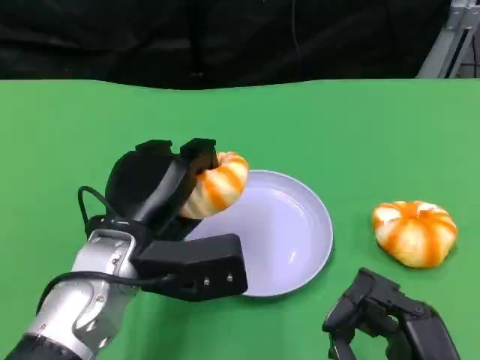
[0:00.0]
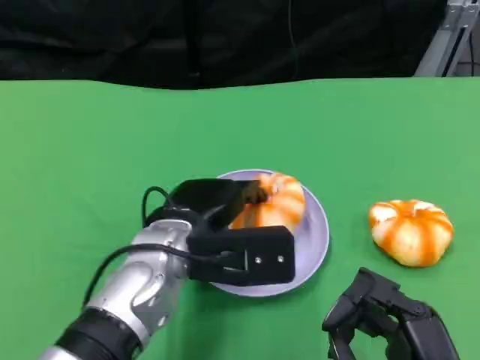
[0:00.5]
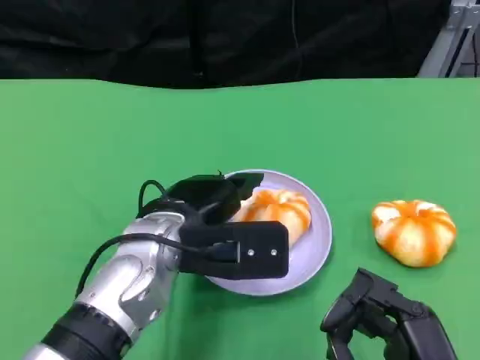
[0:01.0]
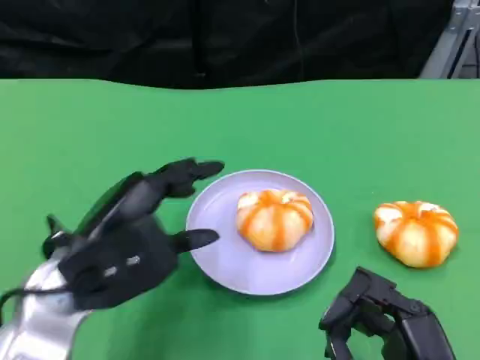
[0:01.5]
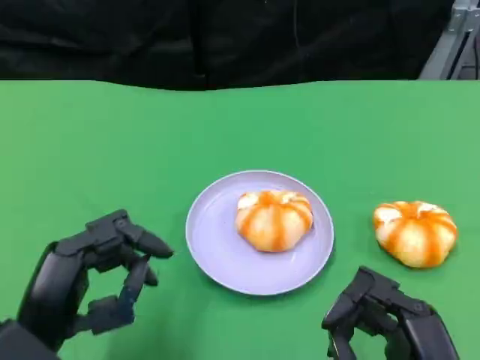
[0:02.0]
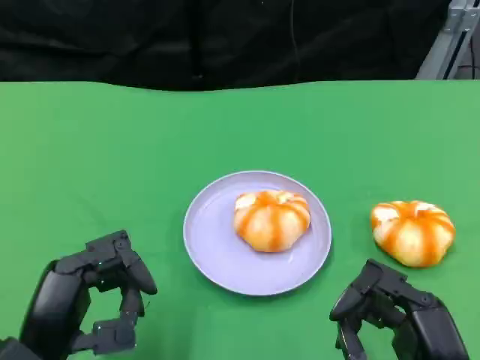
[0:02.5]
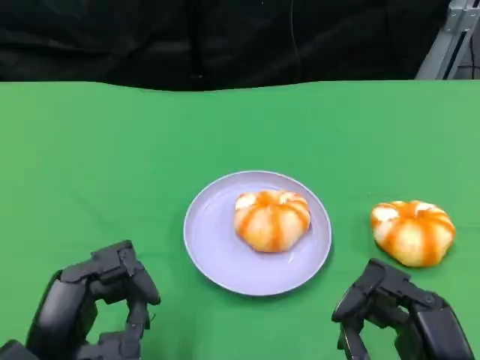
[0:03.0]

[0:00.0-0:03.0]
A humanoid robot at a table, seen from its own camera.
Task of the whole recording: Grasp the bread from the table and place it into the plate.
0:00.0 to 0:01.5: The left hand travels to the left by approximately 5 cm.
0:01.5 to 0:03.0: The left hand travels backward and downward by roughly 10 cm.

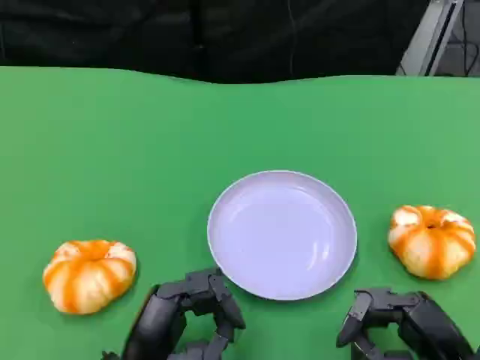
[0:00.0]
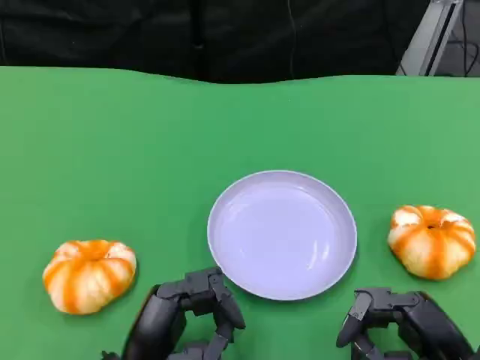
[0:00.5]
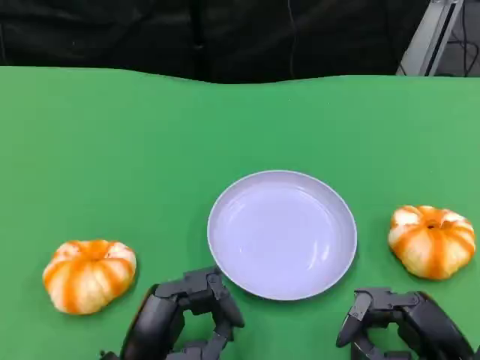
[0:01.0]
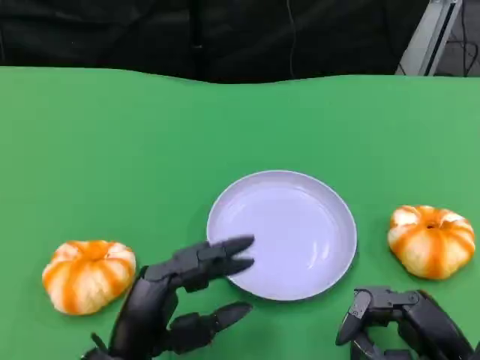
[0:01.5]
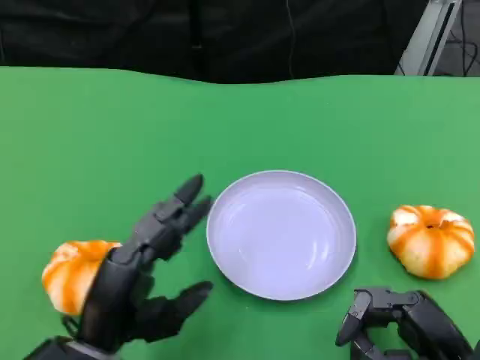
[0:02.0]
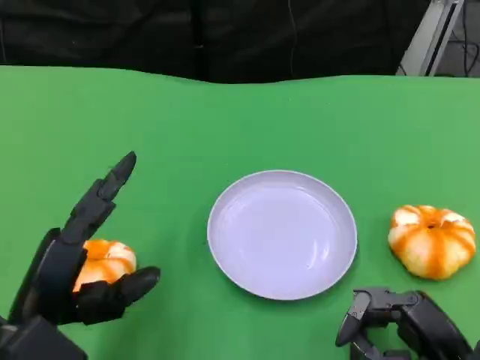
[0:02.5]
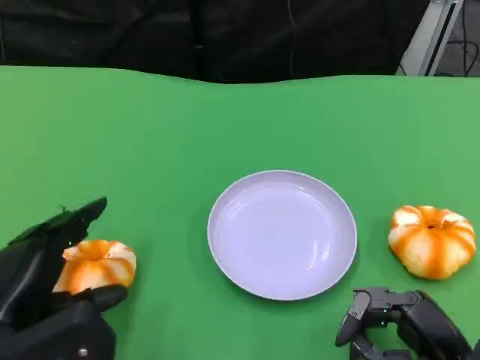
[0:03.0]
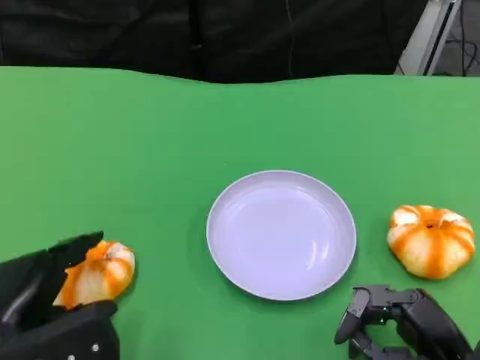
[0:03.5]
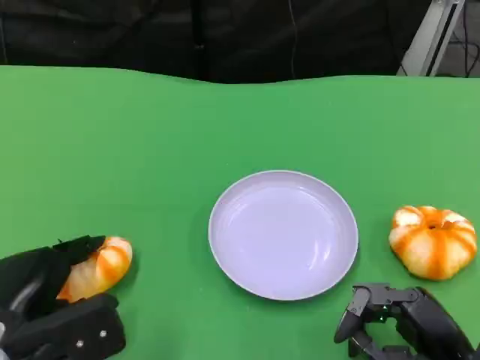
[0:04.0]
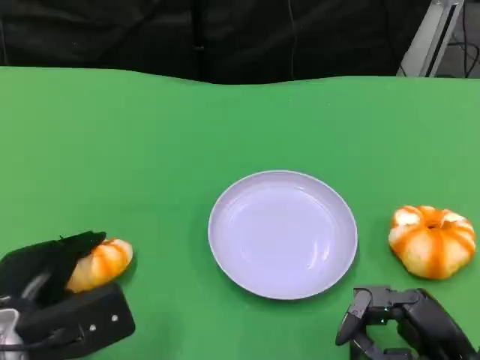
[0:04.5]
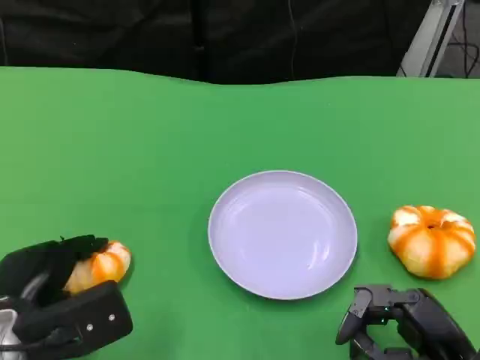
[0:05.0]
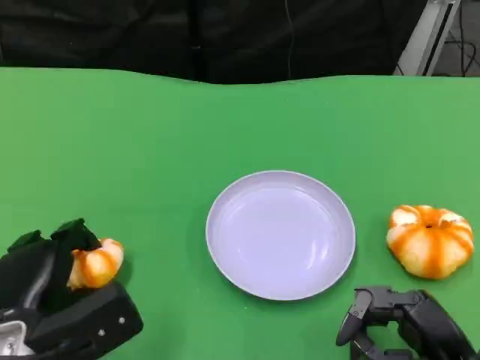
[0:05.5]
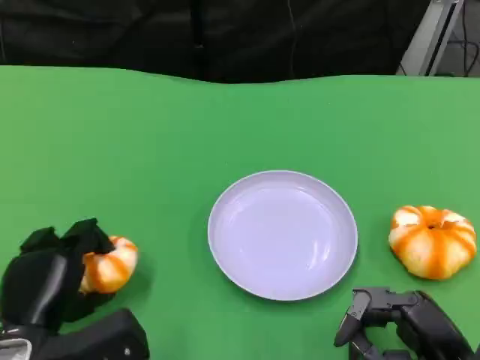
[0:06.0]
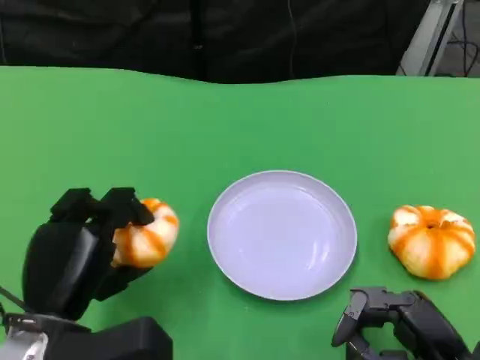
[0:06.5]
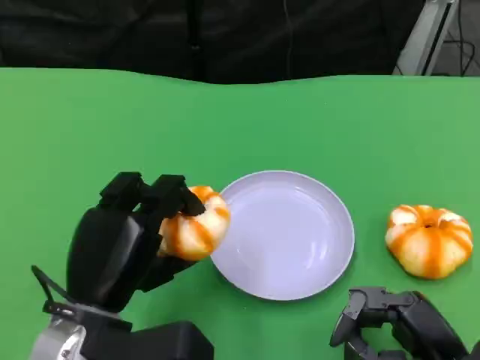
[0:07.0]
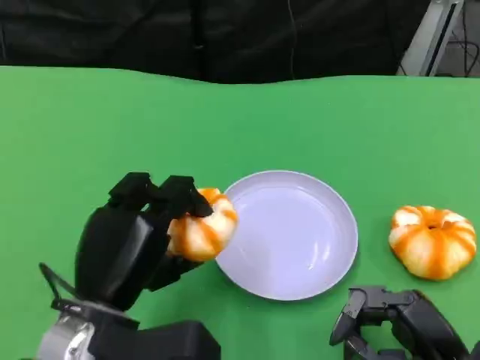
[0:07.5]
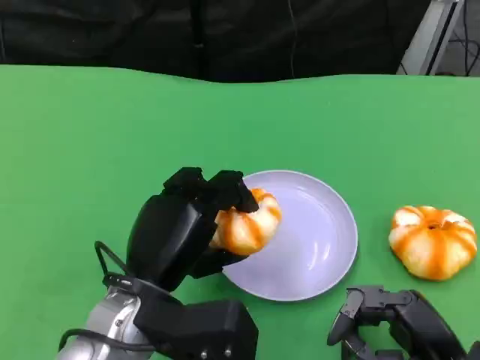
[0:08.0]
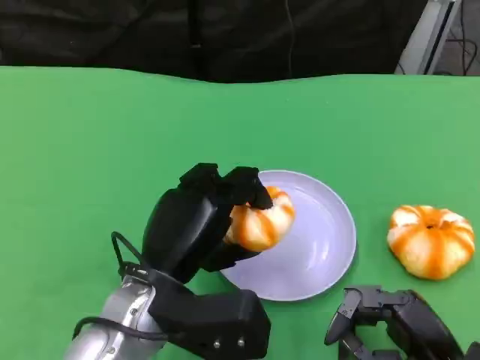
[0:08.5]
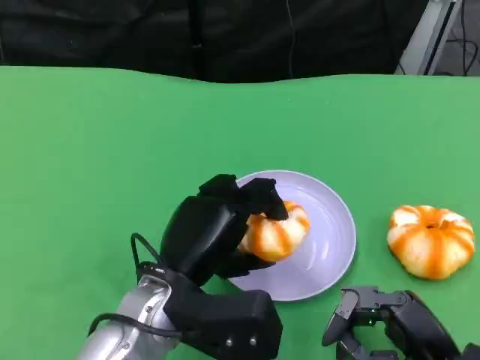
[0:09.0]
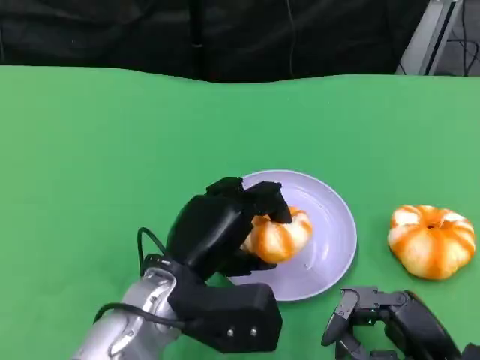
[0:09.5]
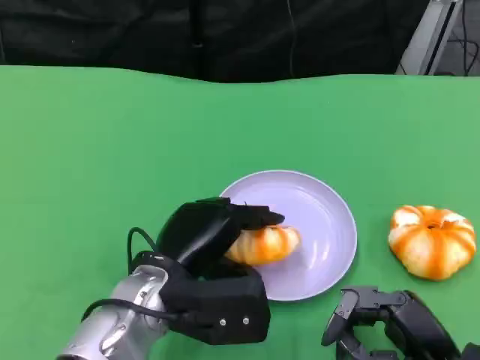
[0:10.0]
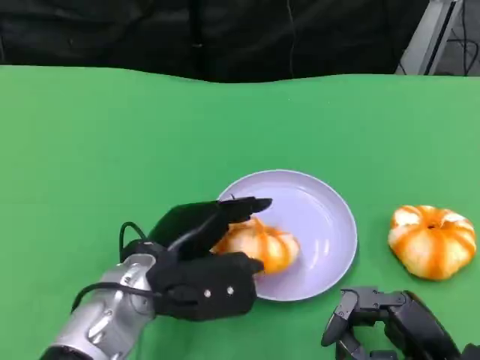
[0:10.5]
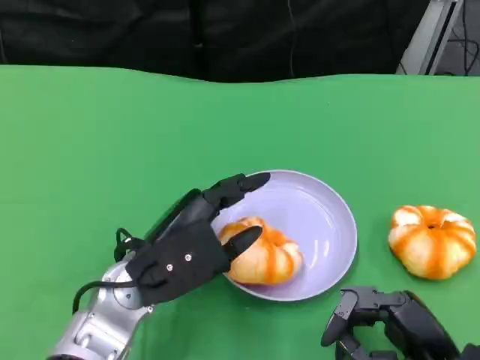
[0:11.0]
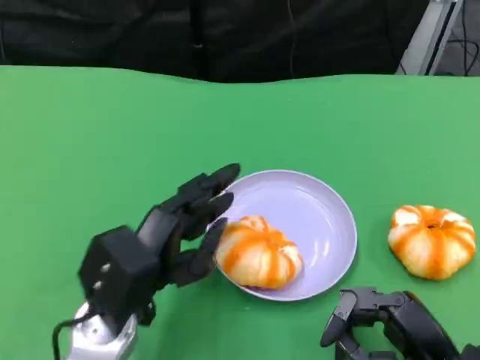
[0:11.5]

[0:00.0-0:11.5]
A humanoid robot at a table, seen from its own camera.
Task of the whole recording: Grasp the bread from the table and place it into the plate.
0:00.0 to 0:02.0: The left hand moves approximately 5 cm.
0:02.0 to 0:04.0: The left hand goes approximately 5 cm to the left.
0:04.0 to 0:06.0: There are only small adjustments of the hands.
0:06.0 to 0:07.5: The left hand is displaced to the right and upward by roughly 10 cm.
0:07.5 to 0:09.5: The left hand moves to the right, about 5 cm.
0:09.5 to 0:11.5: The left hand heads to the left, covering some 5 cm.

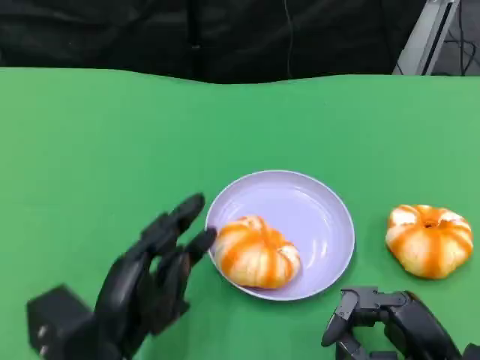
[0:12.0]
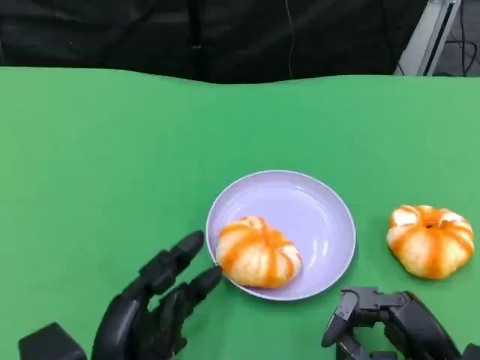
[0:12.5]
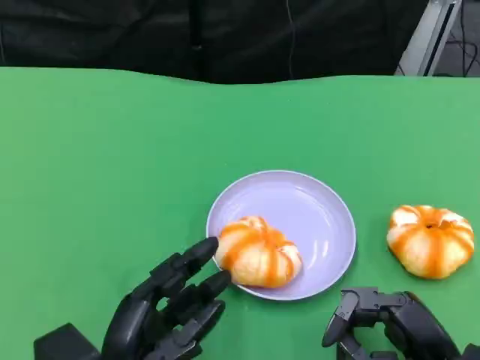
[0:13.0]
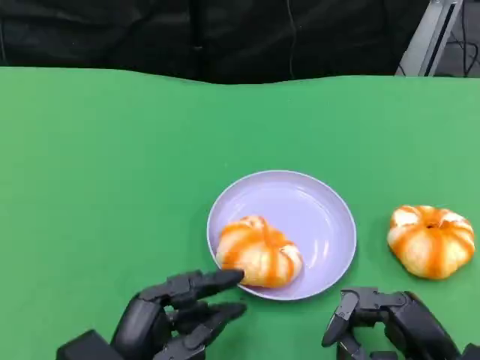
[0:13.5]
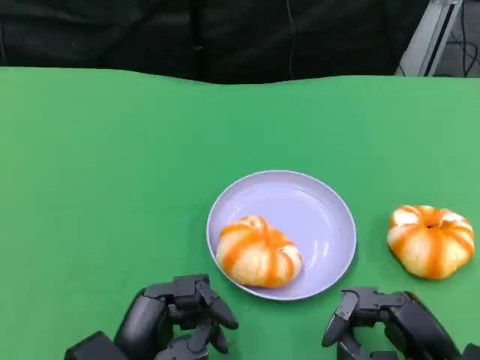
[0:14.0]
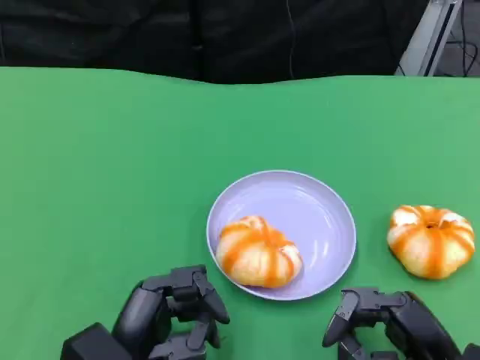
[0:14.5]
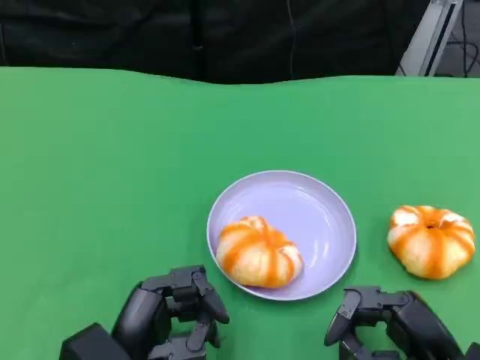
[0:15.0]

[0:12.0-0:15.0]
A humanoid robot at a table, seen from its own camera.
Task of the whole recording: Grasp the bread from the table and place it into the plate.
0:12.0 to 0:13.5: The hands make only small movements.
0:13.5 to 0:15.0: The two hands keep their place.

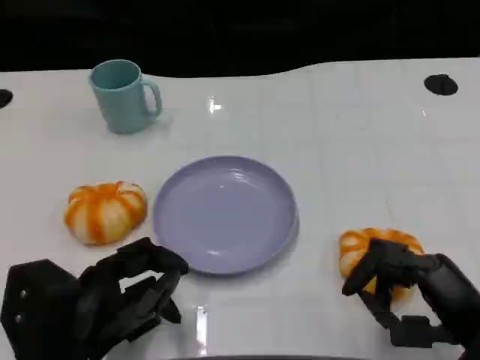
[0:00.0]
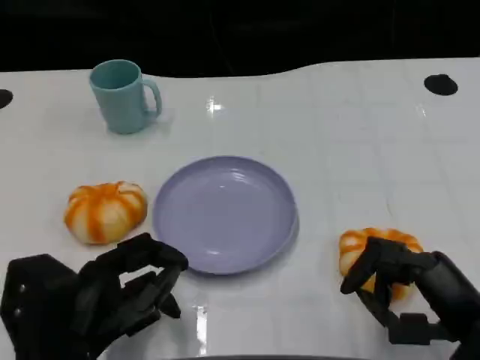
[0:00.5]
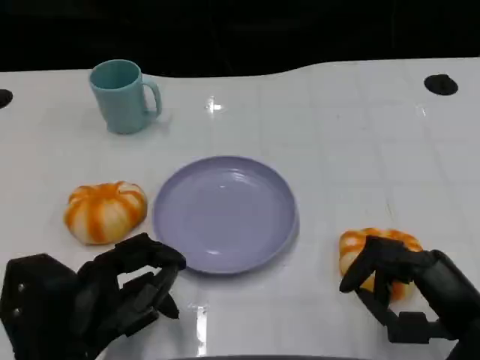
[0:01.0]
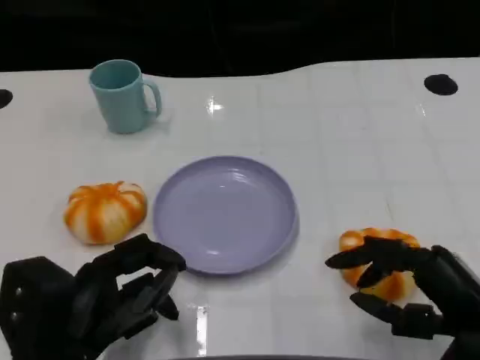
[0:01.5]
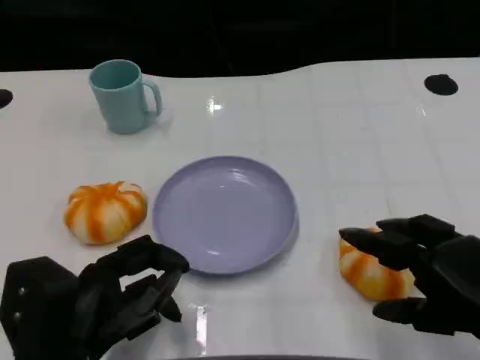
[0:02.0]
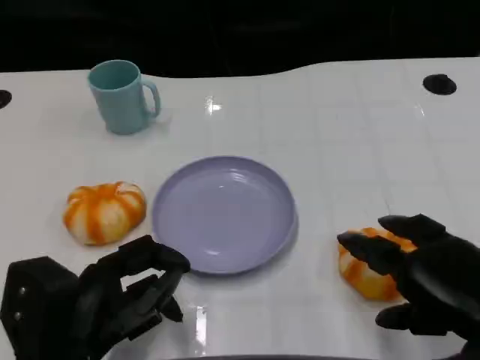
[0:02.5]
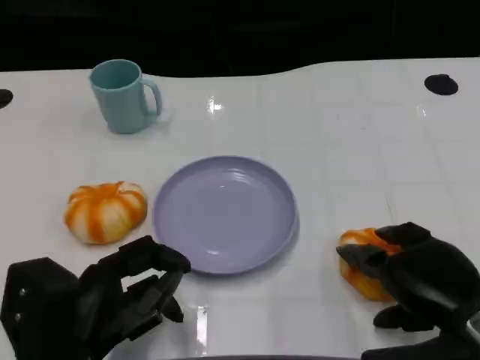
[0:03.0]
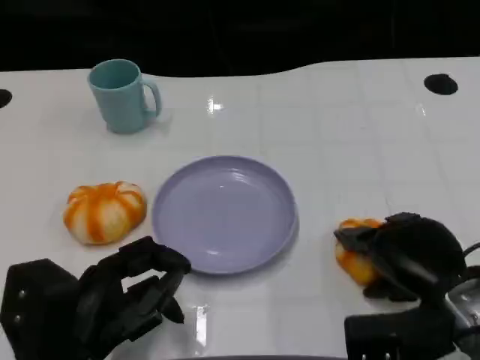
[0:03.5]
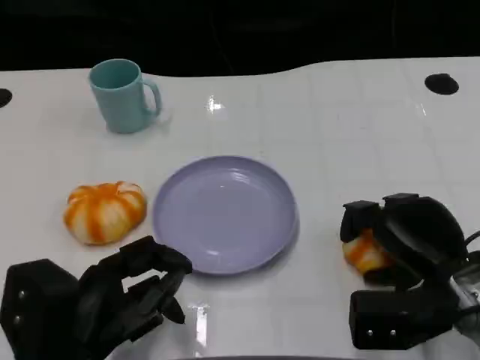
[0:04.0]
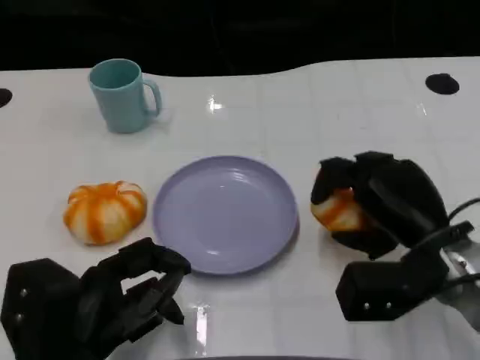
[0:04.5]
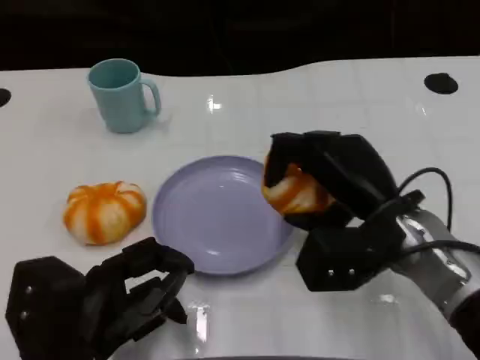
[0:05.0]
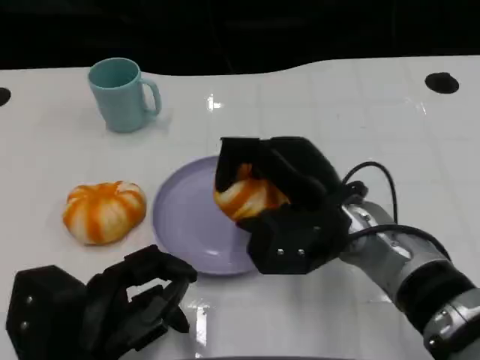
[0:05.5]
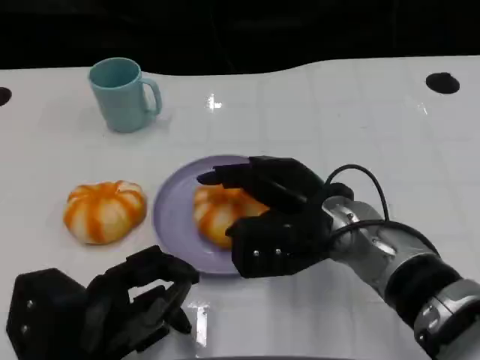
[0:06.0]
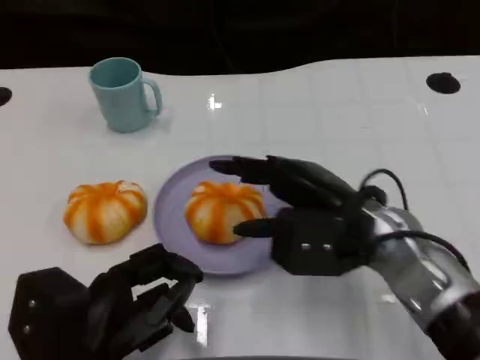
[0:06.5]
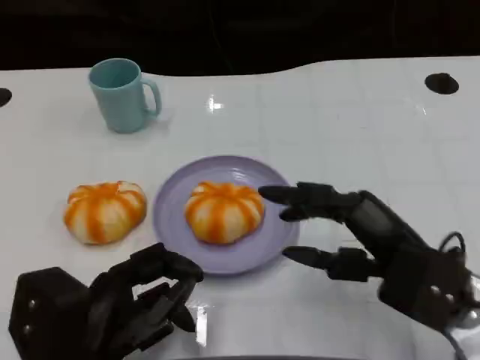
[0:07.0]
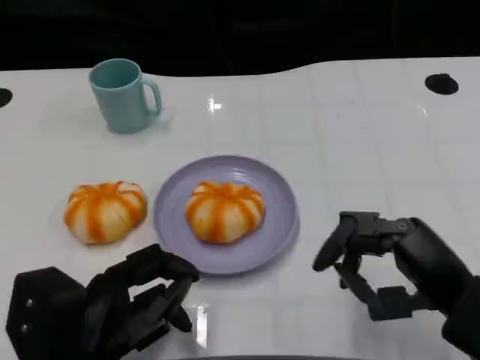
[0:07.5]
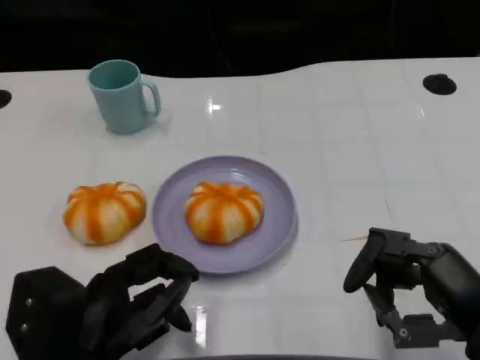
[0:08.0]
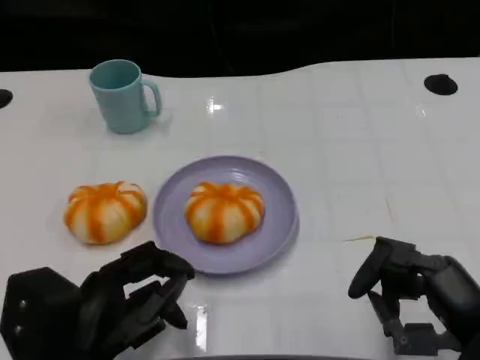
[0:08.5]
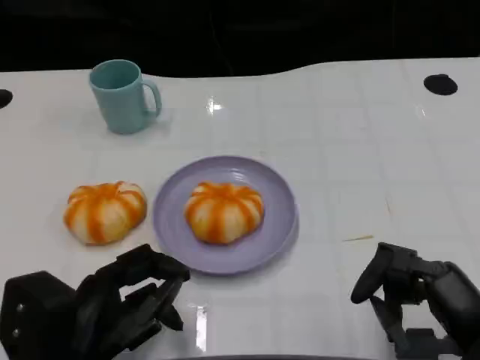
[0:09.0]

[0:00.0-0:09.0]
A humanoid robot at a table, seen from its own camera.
Task of the whole recording: Grasp the bread from the table and place it into the plate.
0:02.0 to 0:04.5: The right hand heads forward and to the left, covering about 10 cm.
0:04.5 to 0:07.0: The right hand reaches about 10 cm to the left, then returns.
0:07.0 to 0:09.0: The right hand travels backward by some 5 cm.
